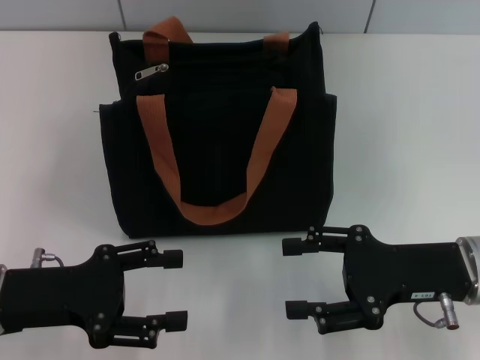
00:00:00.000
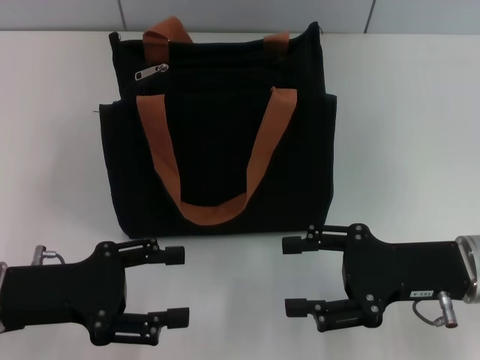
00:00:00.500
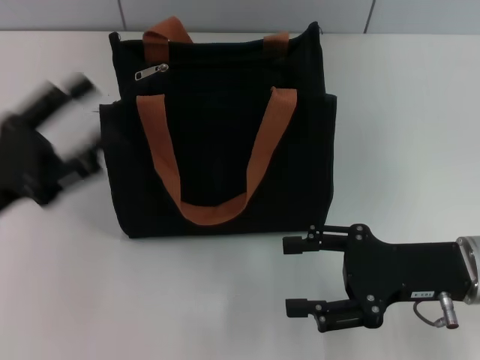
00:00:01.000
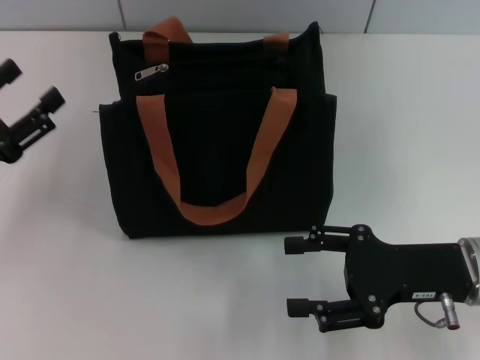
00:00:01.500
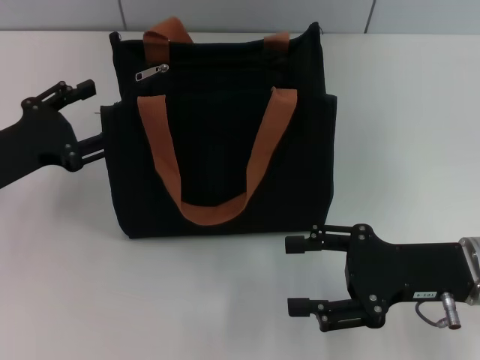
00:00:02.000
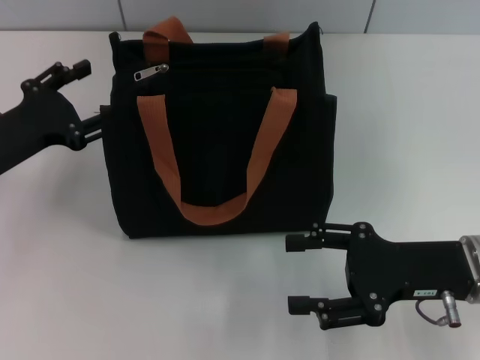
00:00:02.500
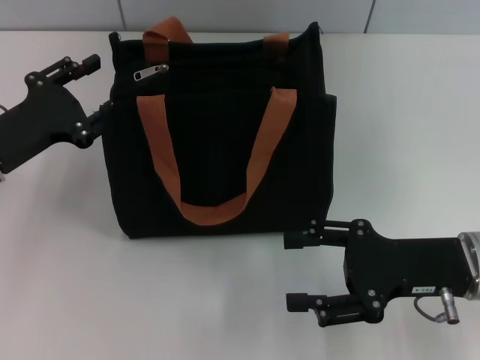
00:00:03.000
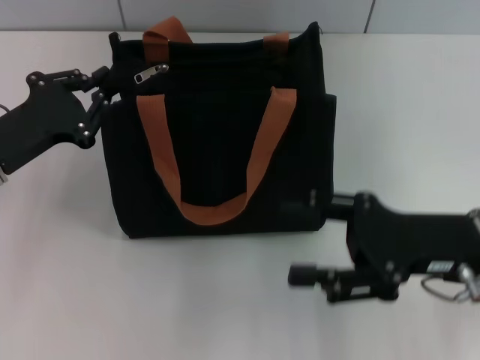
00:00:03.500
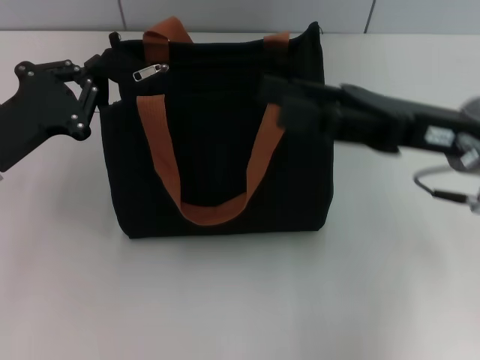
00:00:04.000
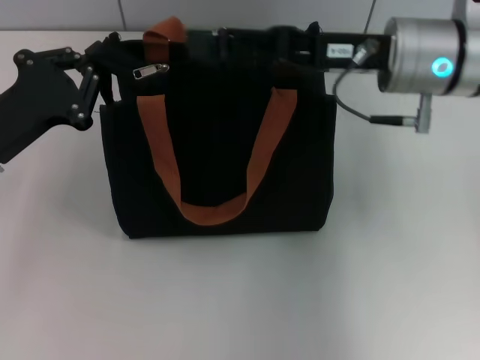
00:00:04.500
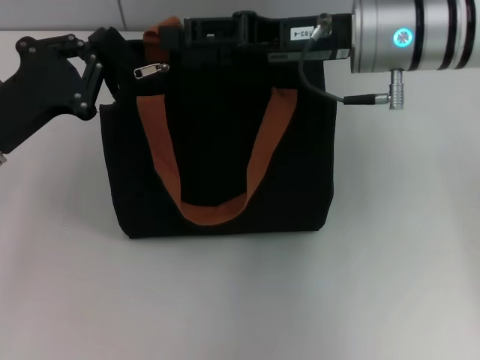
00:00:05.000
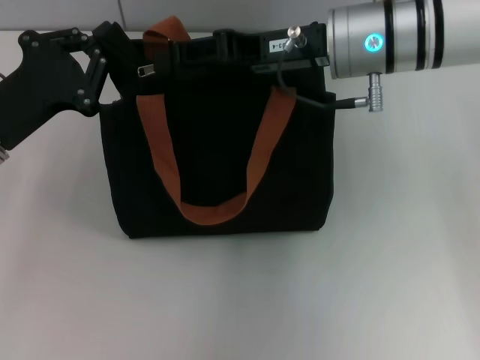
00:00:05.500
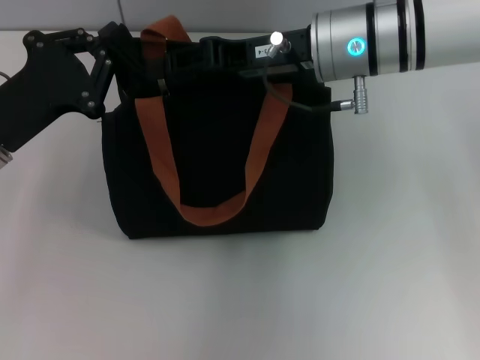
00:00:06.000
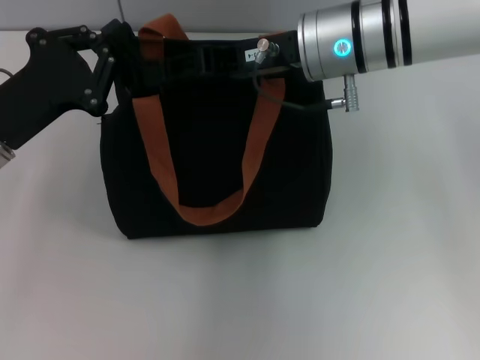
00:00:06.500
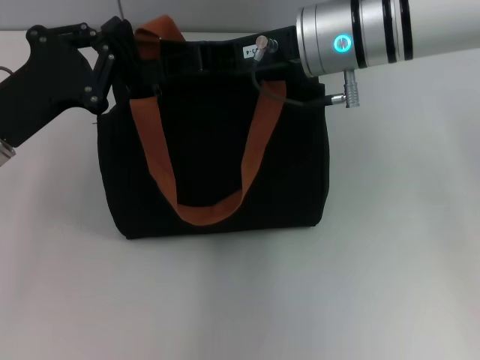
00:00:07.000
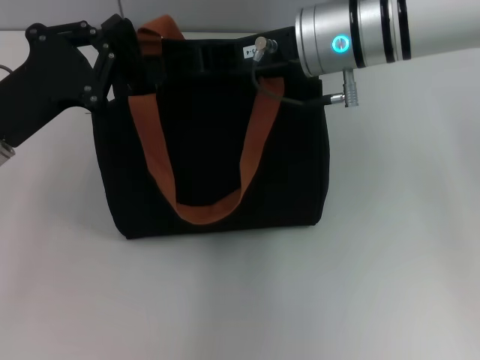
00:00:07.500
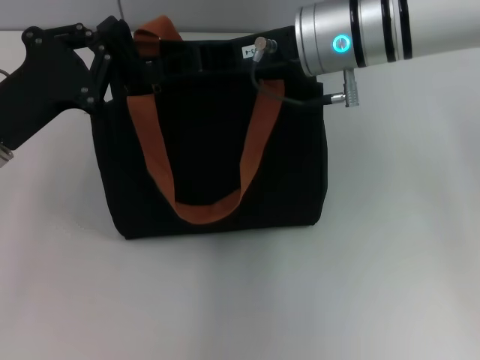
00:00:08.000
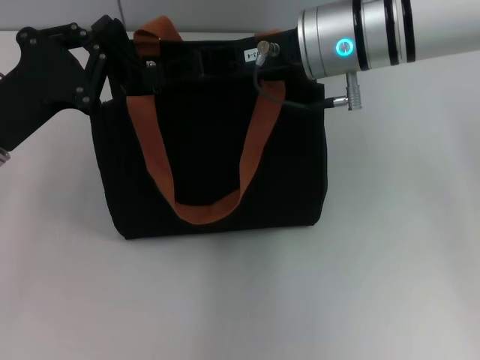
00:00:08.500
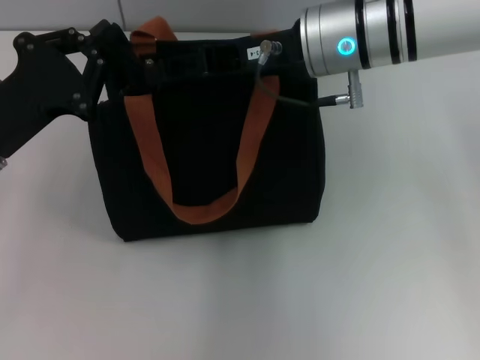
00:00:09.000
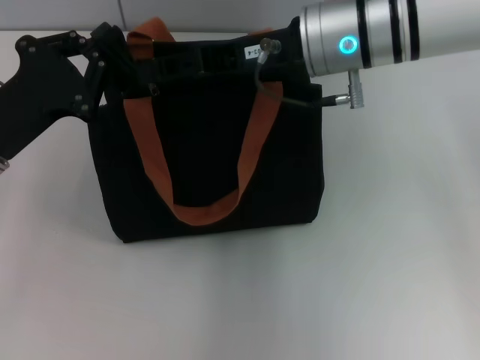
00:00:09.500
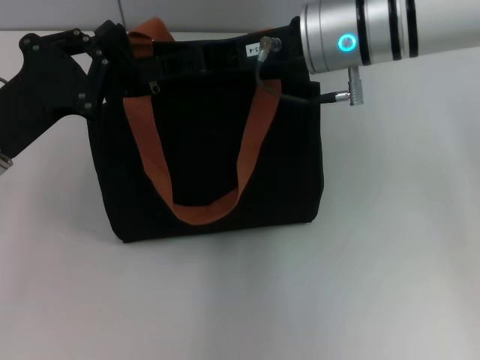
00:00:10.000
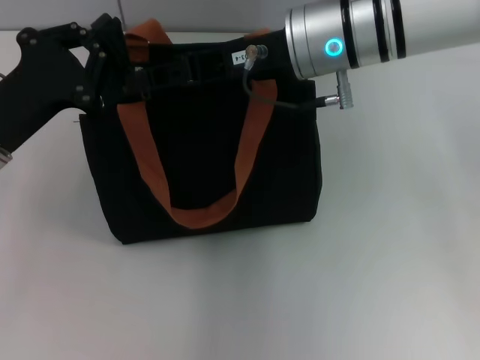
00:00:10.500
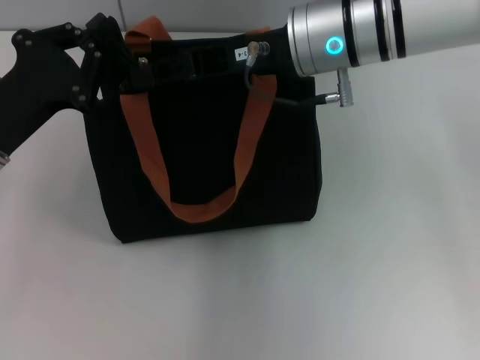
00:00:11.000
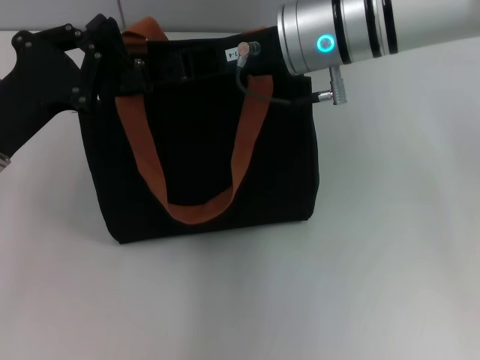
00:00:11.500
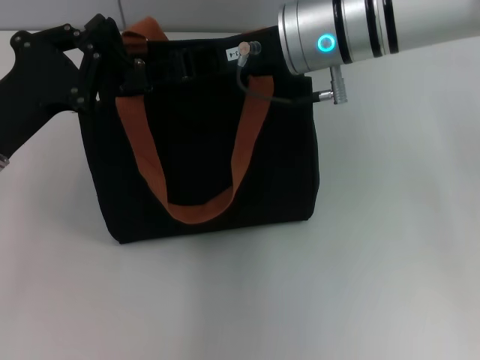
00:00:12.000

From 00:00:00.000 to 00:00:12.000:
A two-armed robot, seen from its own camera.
From 00:00:00.000 to 00:00:02.000: The left gripper is displaced forward by some 5 cm.
From 00:00:02.000 to 00:00:04.000: The left gripper closes its fingers. The right gripper is displaced upward and forward by about 10 cm.
From 00:00:04.000 to 00:00:06.000: The right gripper moves to the left and forward, approximately 15 cm.
From 00:00:06.000 to 00:00:08.000: There are only small adjustments of the grippers.
From 00:00:08.000 to 00:00:10.000: Neither gripper changes place.
From 00:00:10.000 to 00:00:12.000: The grippers move only a little.

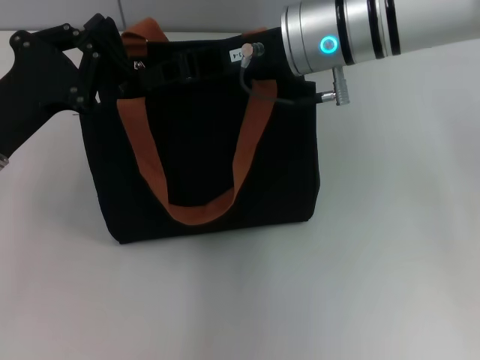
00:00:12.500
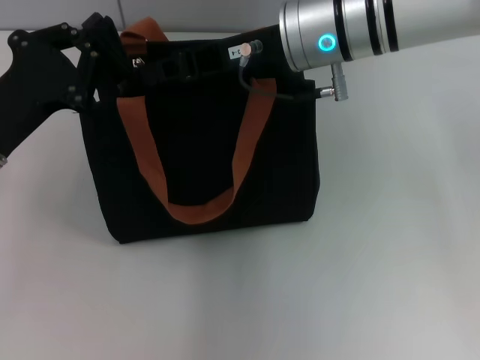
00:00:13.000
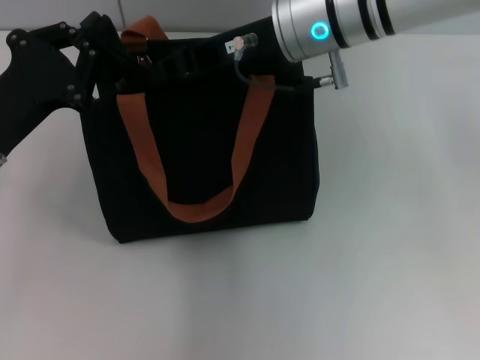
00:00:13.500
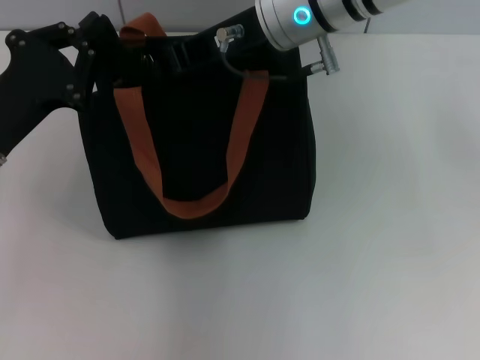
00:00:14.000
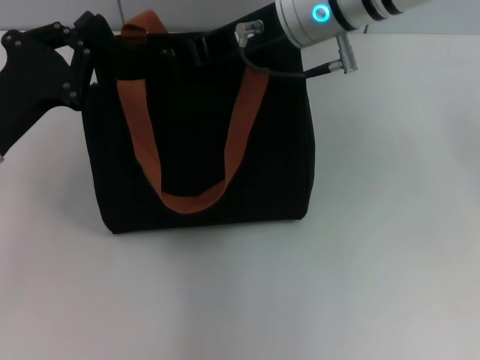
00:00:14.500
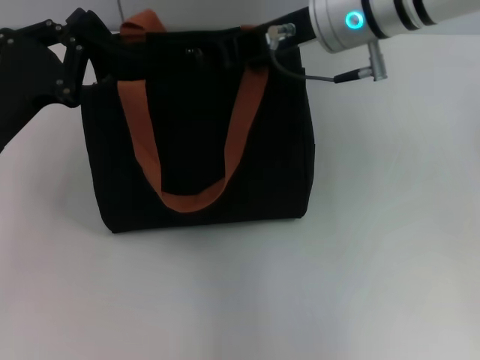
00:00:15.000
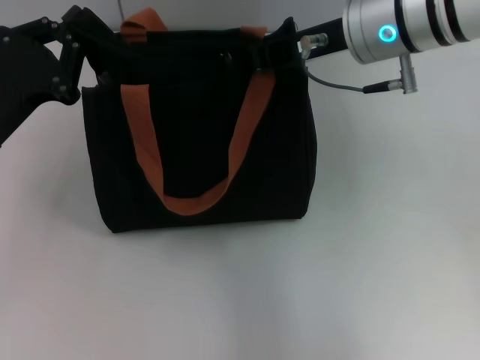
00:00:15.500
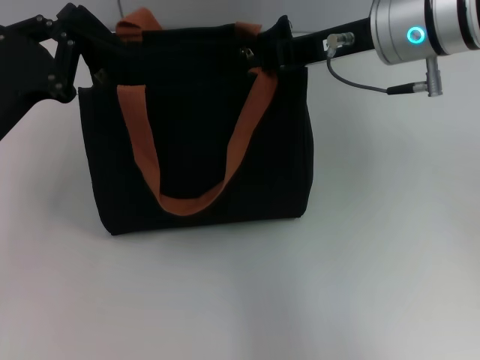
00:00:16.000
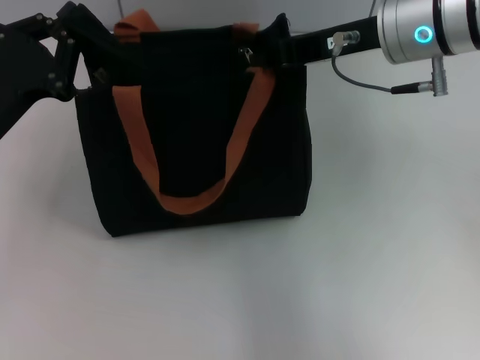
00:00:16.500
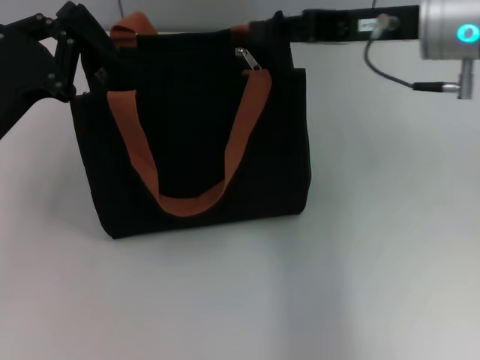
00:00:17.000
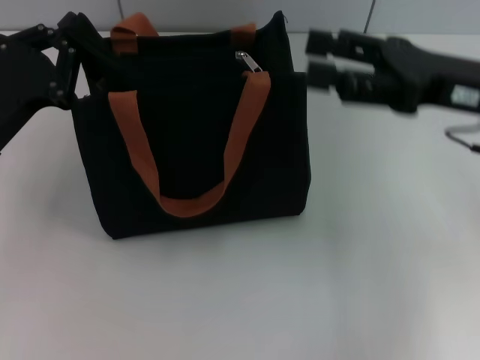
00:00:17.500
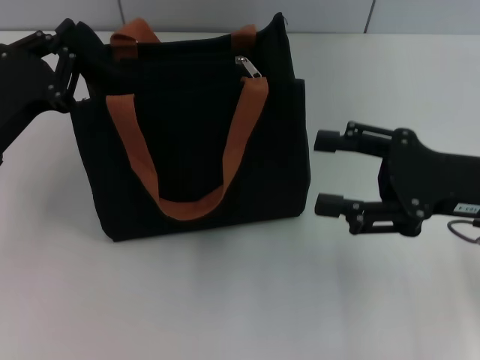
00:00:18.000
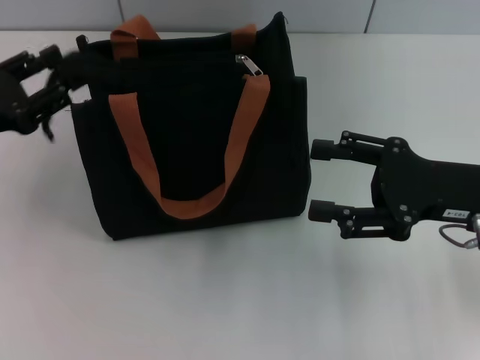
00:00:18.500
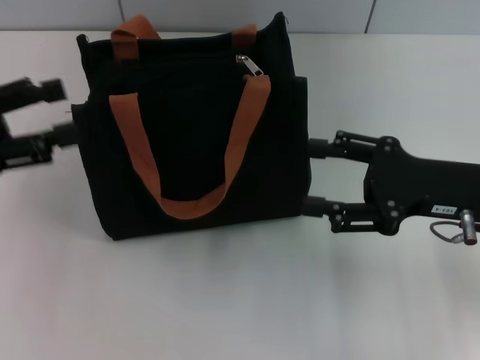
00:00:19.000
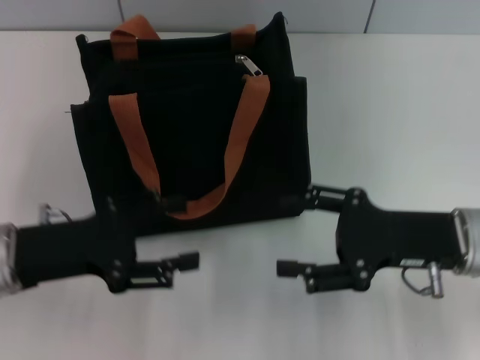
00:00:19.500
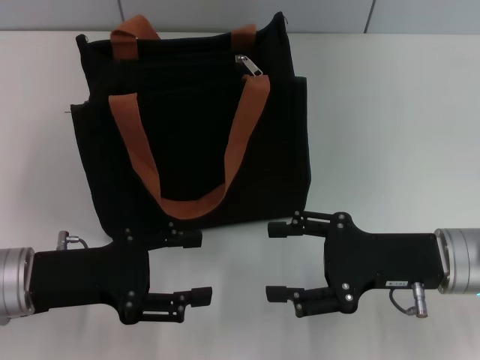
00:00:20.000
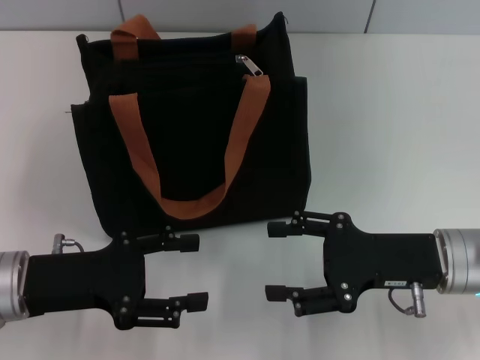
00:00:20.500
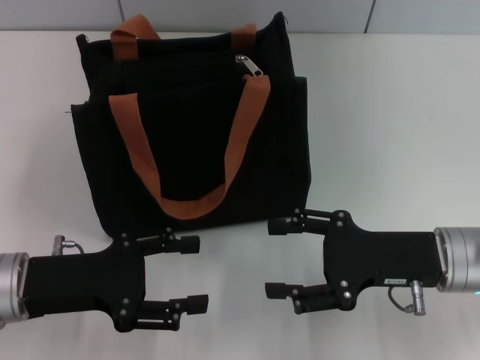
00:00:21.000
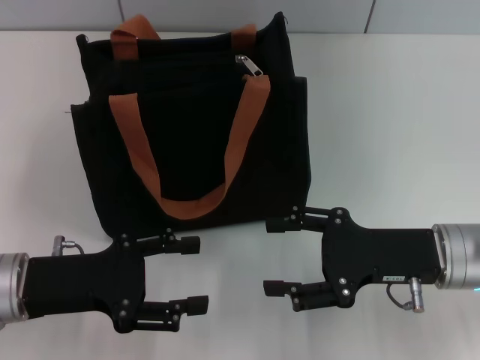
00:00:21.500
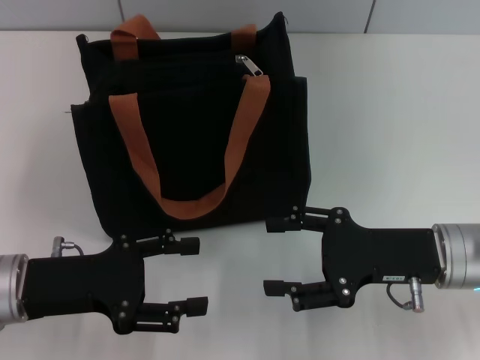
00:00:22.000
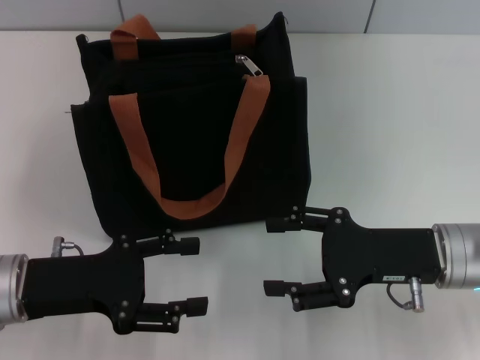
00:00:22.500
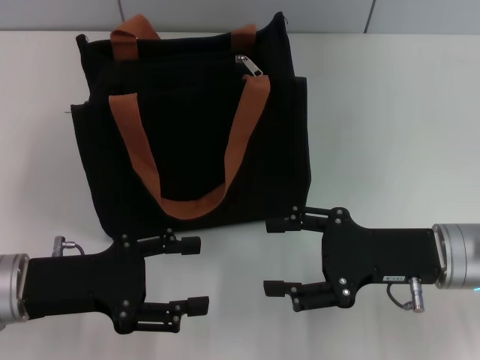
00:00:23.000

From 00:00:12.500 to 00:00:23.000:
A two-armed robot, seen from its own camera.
Step, from 00:00:12.500 to 00:00:17.000: Pull up the zipper with your right hand.
Step, from 00:00:17.500 to 00:00:18.500: Grab the zipper with your left hand.
From 00:00:12.500 to 00:00:14.500: The grippers make only small movements.
From 00:00:14.500 to 00:00:16.500: The right gripper moves to the right, roughly 10 cm.
From 00:00:16.500 to 00:00:19.000: The left gripper heads to the left and upward, covering approximately 10 cm, and opens its fingers, while the right gripper goes about 20 cm downward, backward and to the right, and opens up.
From 00:00:19.000 to 00:00:21.000: The right gripper ends up roughly 5 cm from where it was; the left gripper travels to the right and downward by roughly 15 cm.
From 00:00:21.000 to 00:00:23.000: Neither gripper changes place.

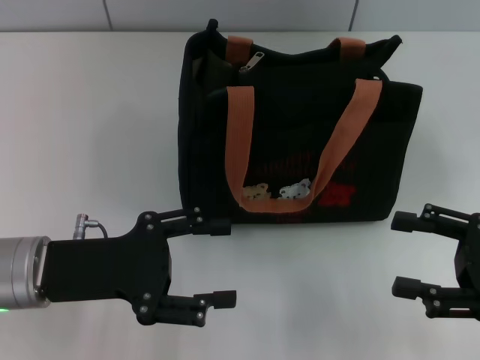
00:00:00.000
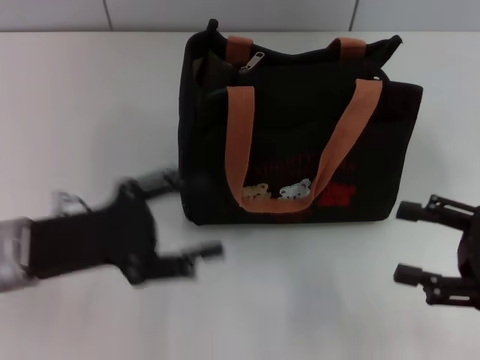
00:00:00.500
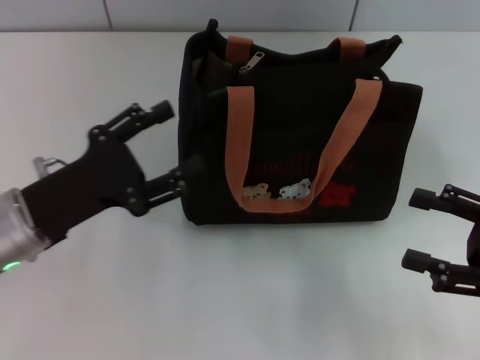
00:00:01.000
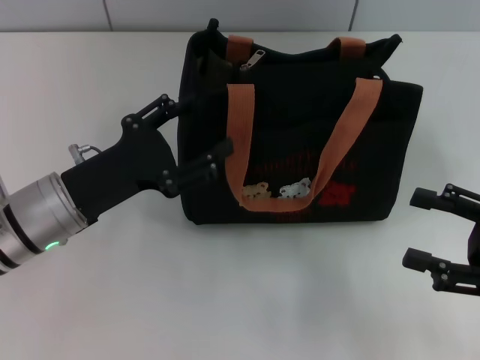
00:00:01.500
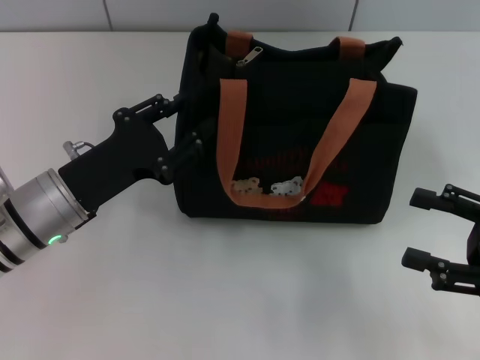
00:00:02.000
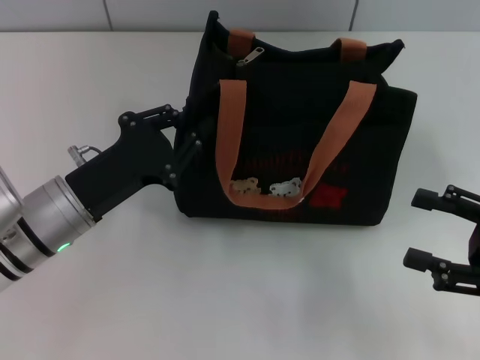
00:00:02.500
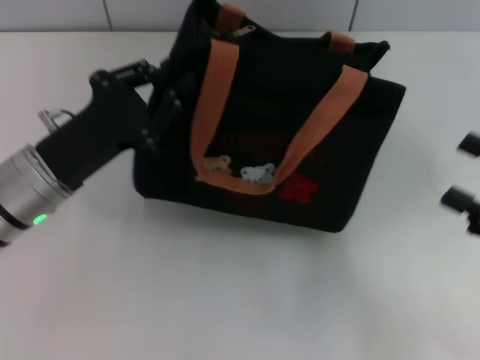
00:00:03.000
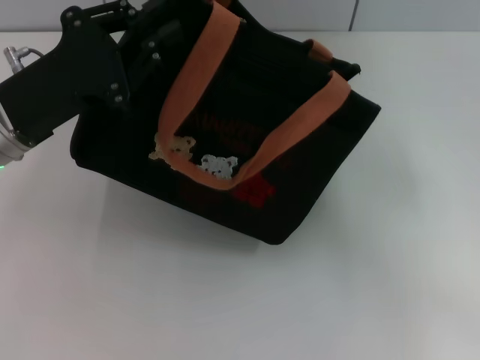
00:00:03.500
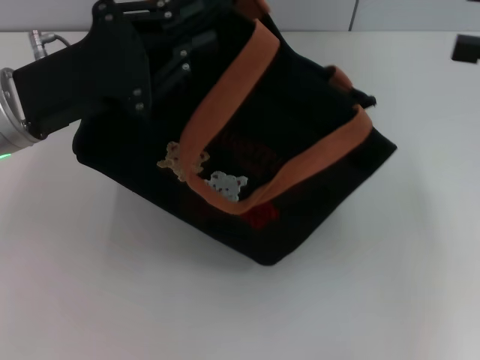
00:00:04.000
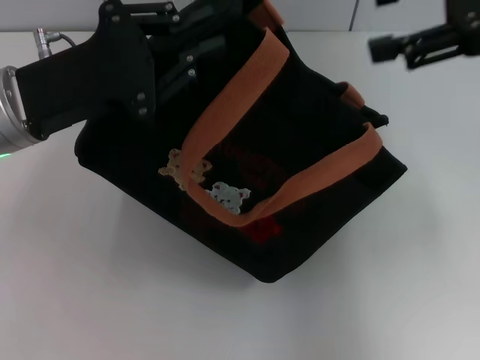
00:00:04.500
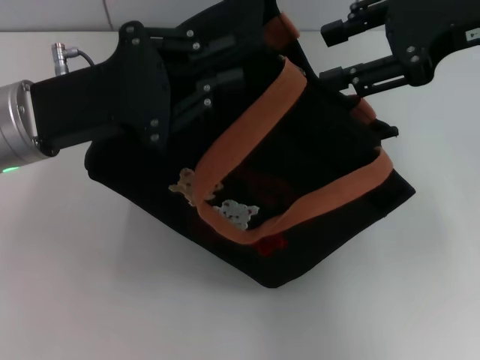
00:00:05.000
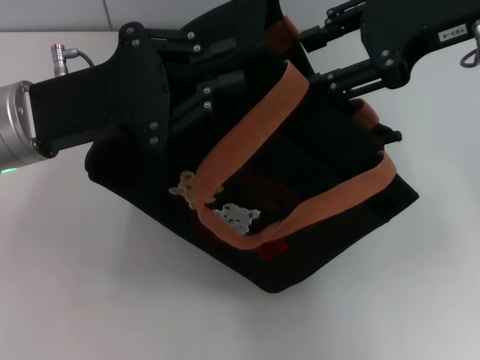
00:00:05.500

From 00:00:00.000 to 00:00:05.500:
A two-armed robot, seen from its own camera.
From 00:00:00.000 to 00:00:02.000: The left gripper changes place by approximately 5 cm.
From 00:00:02.000 to 00:00:03.500: The two grippers go some 5 cm upward. The left gripper closes its fingers.
From 00:00:03.500 to 00:00:05.500: The right gripper goes approximately 25 cm to the left, forward and upward.
